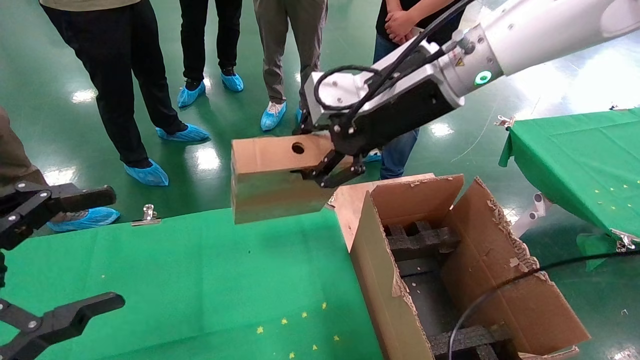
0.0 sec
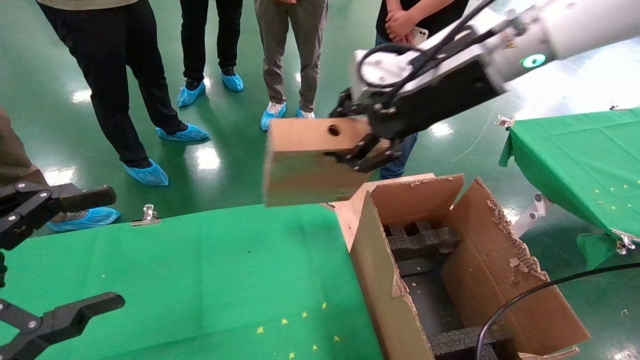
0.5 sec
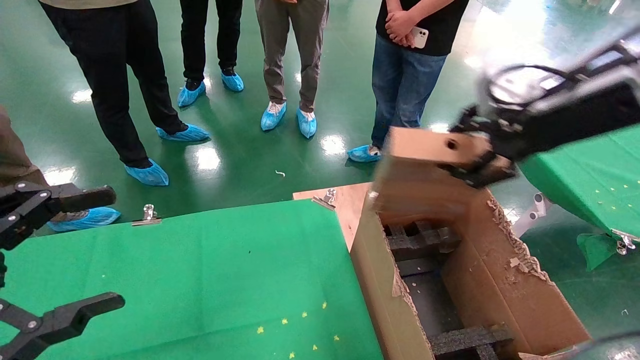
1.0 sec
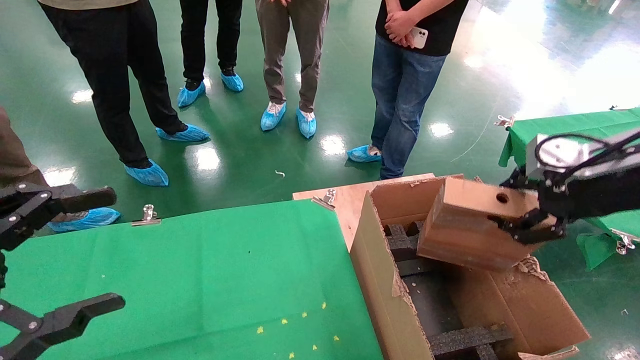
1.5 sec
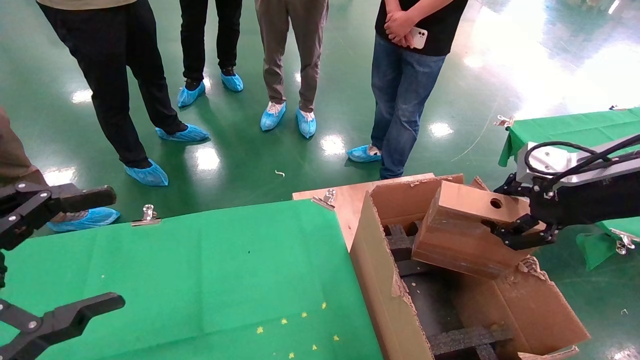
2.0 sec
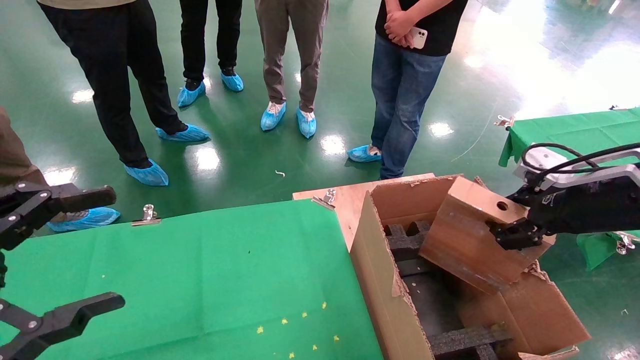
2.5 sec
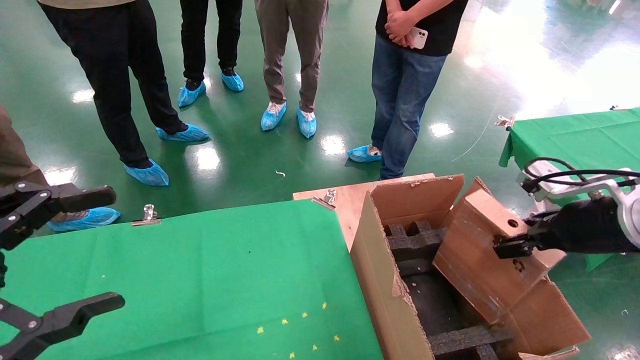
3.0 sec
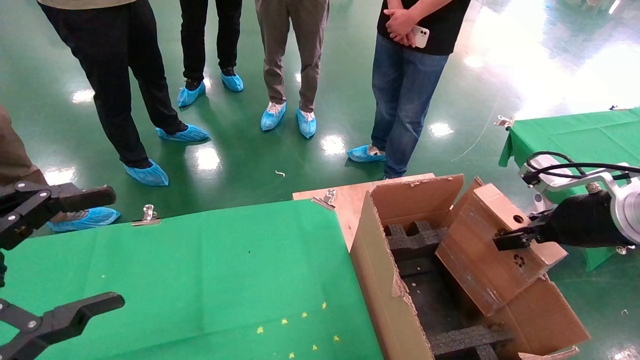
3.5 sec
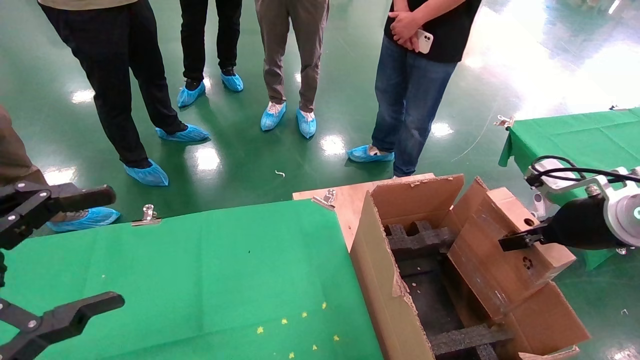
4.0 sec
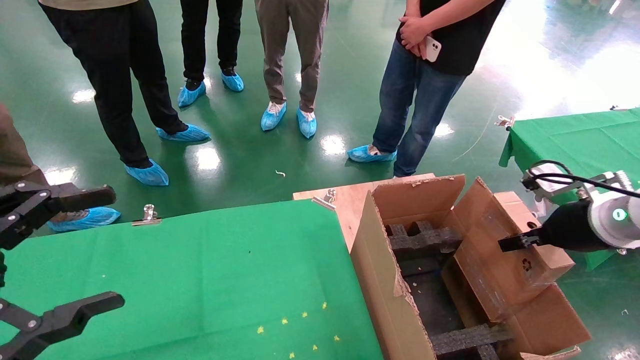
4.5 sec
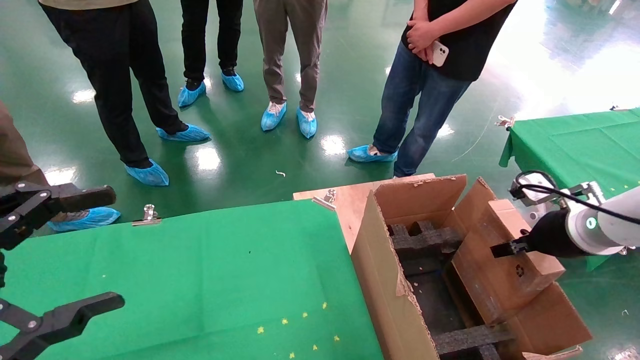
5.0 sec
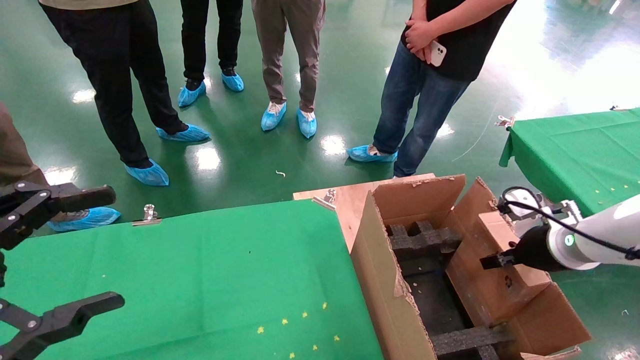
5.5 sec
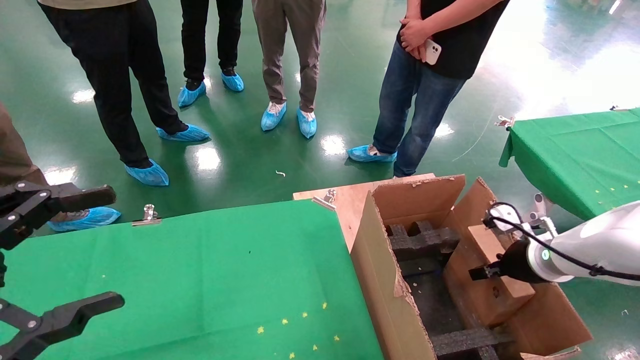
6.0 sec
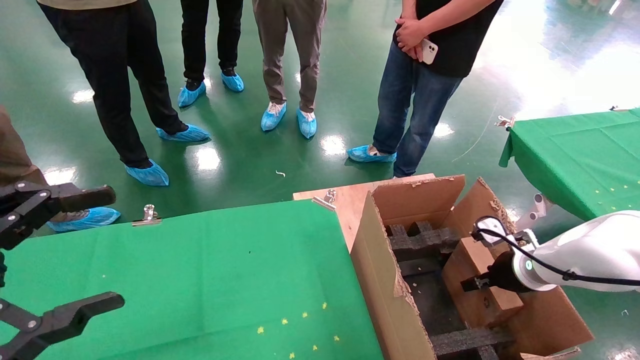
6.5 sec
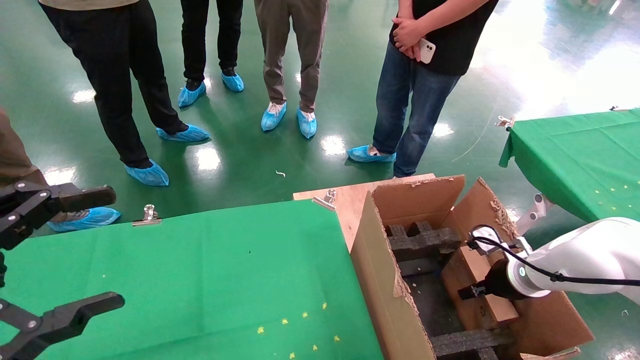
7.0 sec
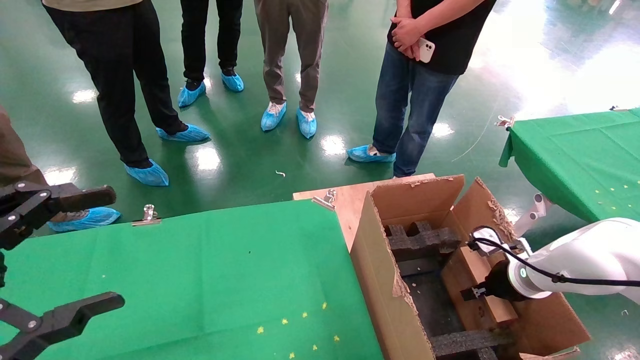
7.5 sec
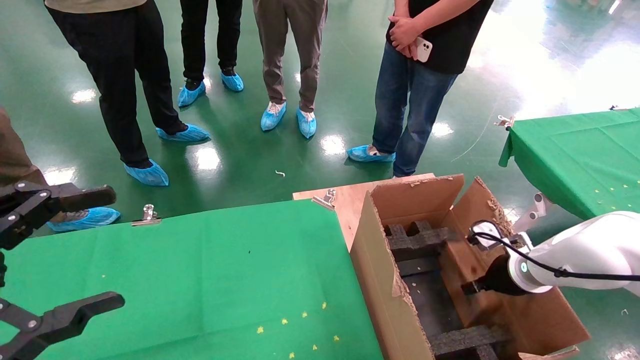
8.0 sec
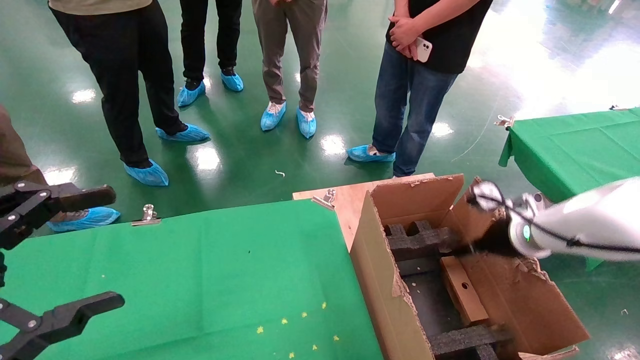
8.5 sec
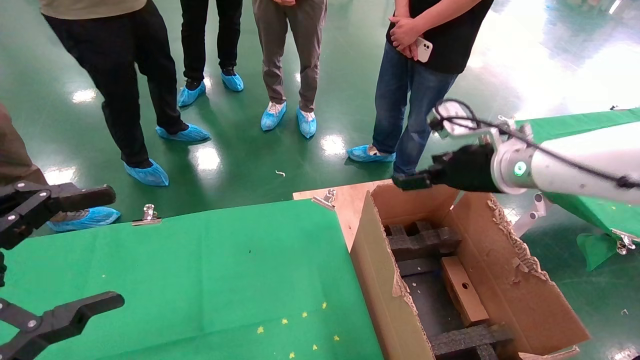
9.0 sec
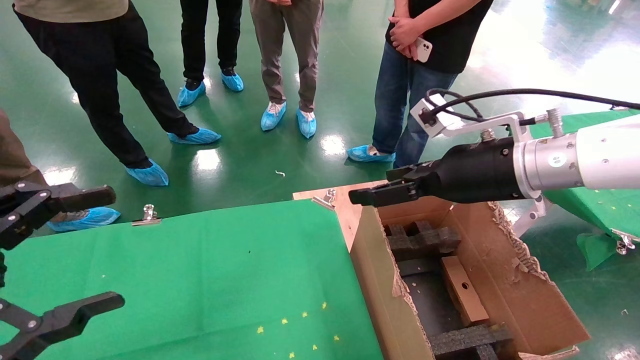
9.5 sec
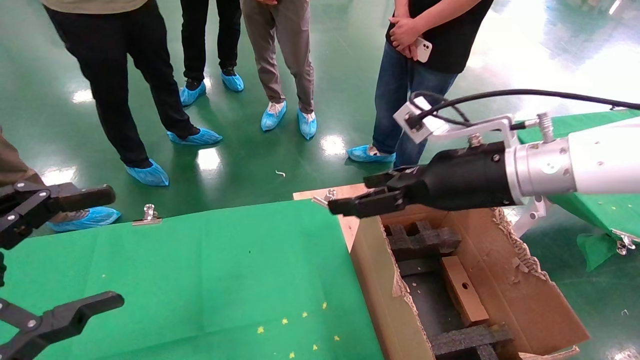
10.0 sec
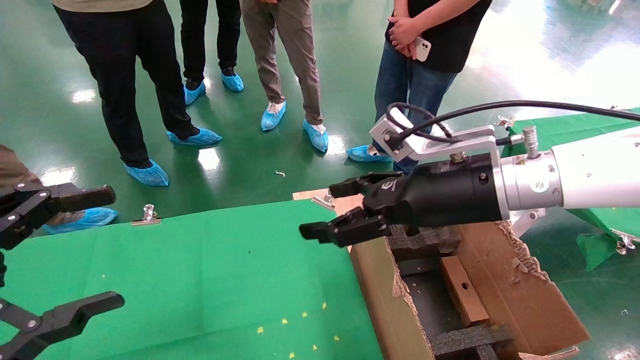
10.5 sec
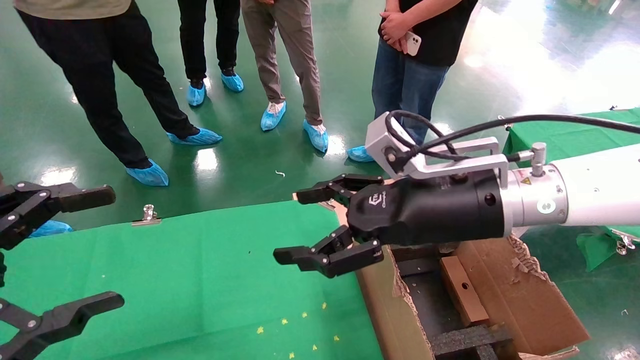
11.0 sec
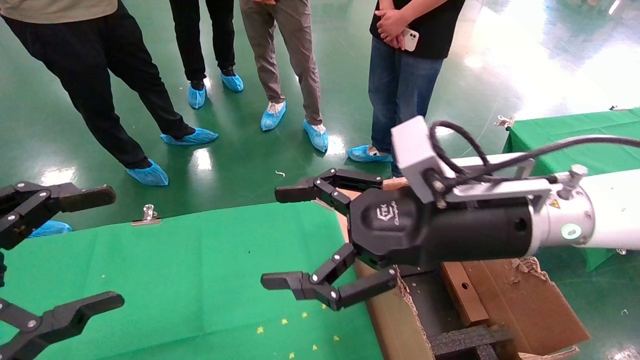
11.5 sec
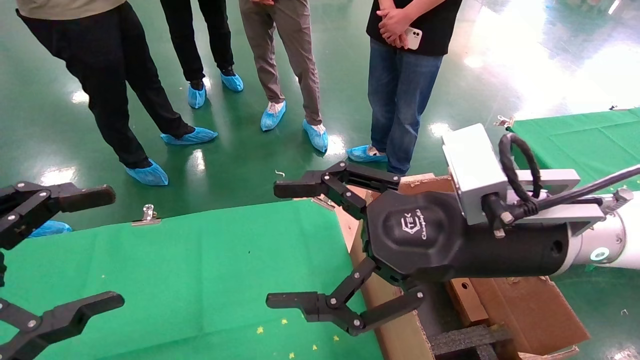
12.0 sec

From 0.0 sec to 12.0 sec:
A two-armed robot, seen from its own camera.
Task of the whole recording: using a robotic arm to pick up a cardboard box and palace it the carton.
Step, from 0.0 sec to 8.5 sec: Place the mouse and the power cord paper box into the container.
From 0.0 sec to 2.0 sec: The right gripper is displaced to the right and backward by roughly 25 cm.
From 2.0 sec to 4.0 sec: The right gripper travels downward by about 5 cm.
From 4.0 sec to 6.0 sec: The right gripper goes roughly 15 cm downward and forward.
From 6.0 sec to 8.0 sec: The right gripper opens its fingers.
From 8.0 sec to 10.0 sec: The right gripper moves upward and to the left, some 25 cm, and opens its fingers.
From 10.0 sec to 12.0 sec: The right gripper travels backward by some 10 cm.
